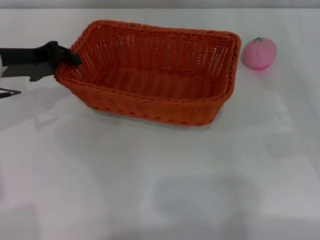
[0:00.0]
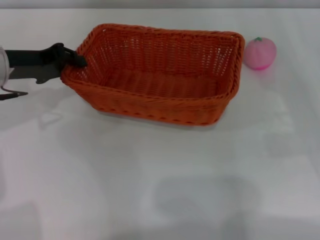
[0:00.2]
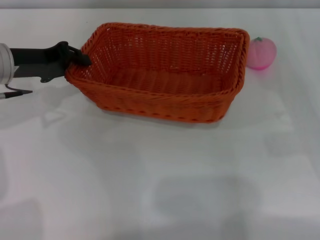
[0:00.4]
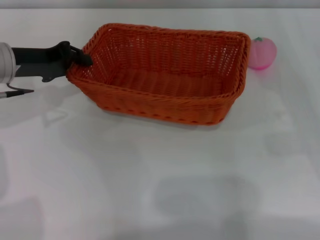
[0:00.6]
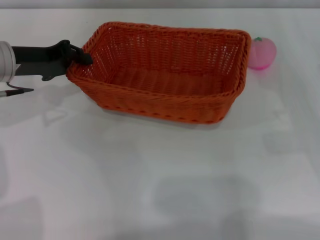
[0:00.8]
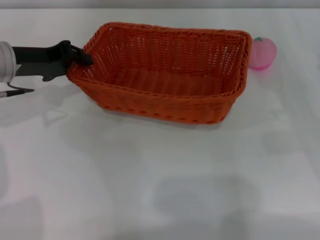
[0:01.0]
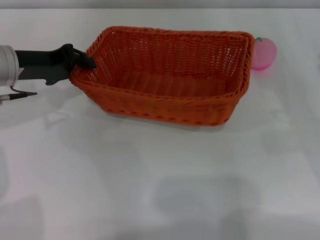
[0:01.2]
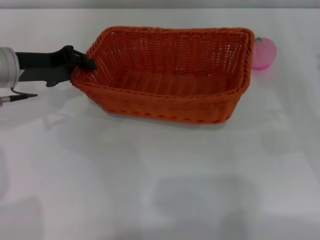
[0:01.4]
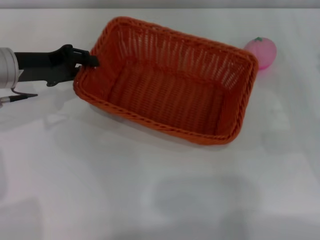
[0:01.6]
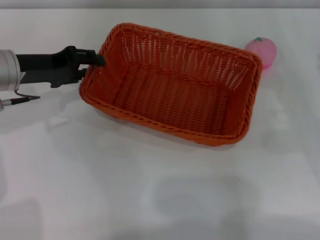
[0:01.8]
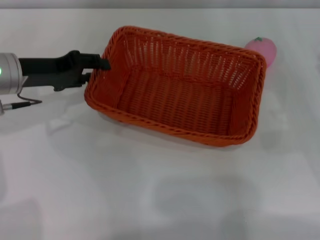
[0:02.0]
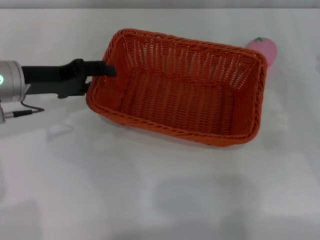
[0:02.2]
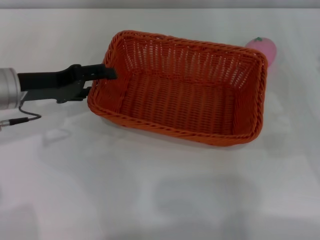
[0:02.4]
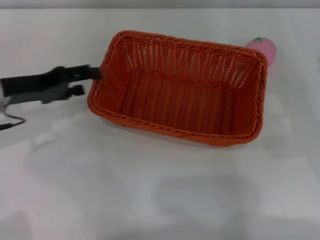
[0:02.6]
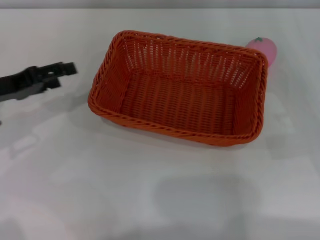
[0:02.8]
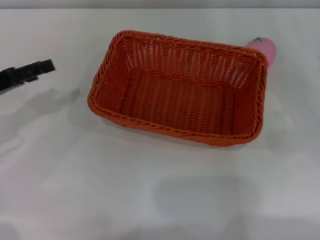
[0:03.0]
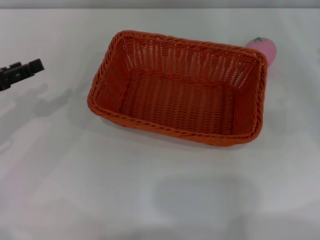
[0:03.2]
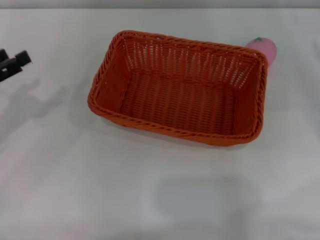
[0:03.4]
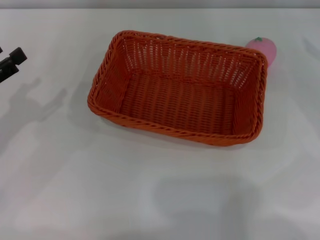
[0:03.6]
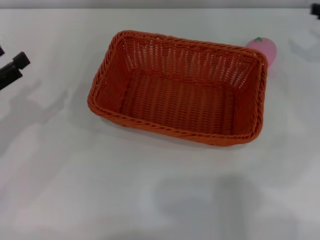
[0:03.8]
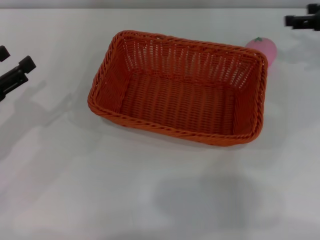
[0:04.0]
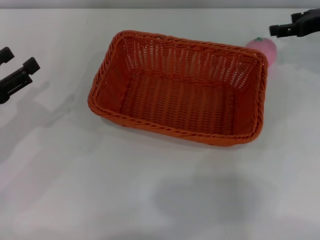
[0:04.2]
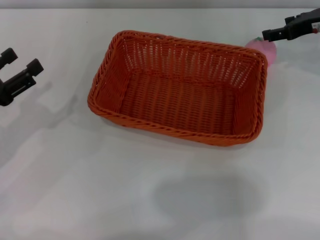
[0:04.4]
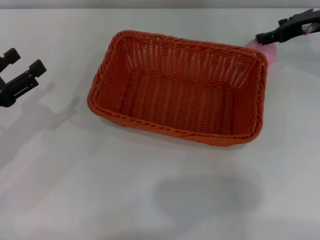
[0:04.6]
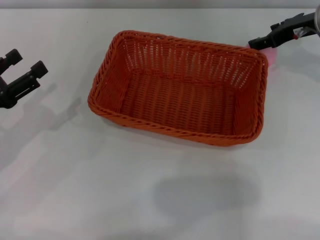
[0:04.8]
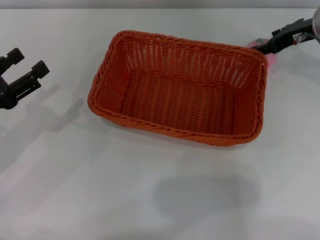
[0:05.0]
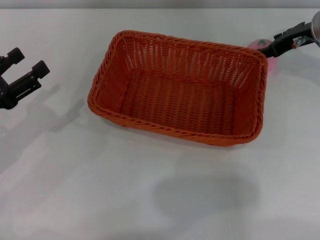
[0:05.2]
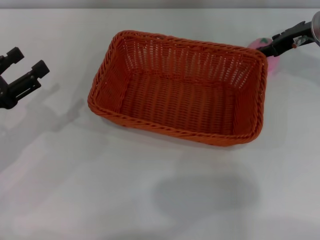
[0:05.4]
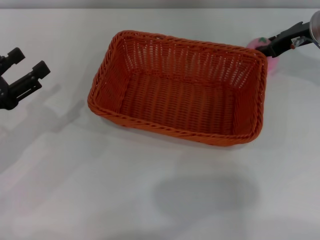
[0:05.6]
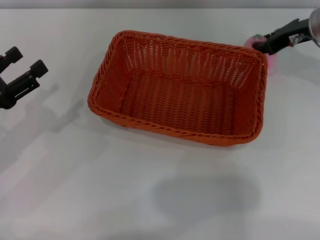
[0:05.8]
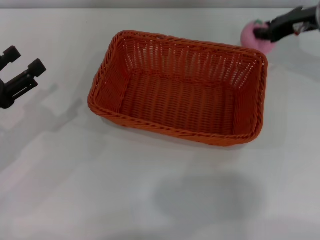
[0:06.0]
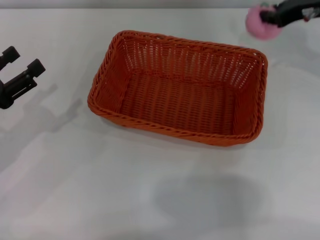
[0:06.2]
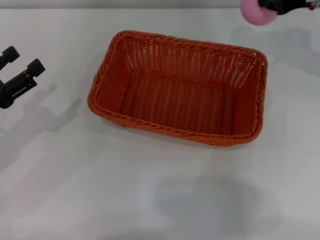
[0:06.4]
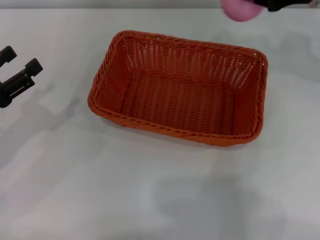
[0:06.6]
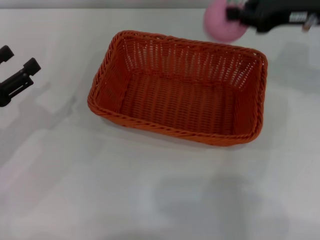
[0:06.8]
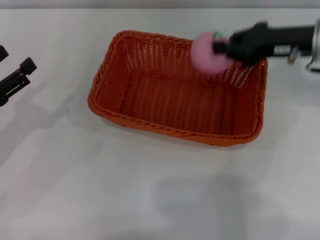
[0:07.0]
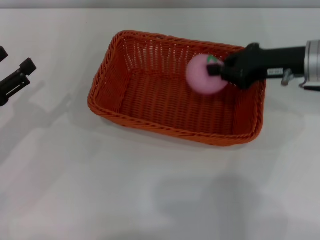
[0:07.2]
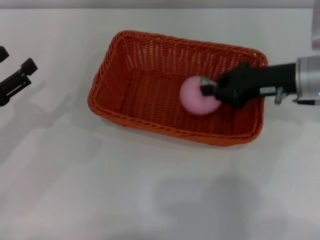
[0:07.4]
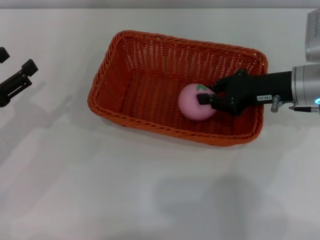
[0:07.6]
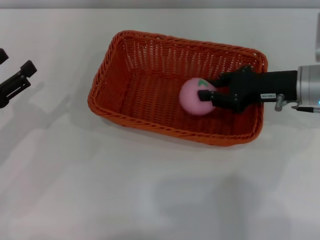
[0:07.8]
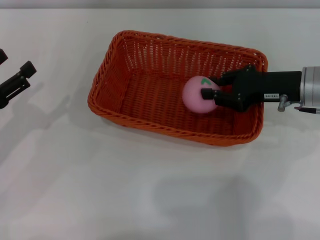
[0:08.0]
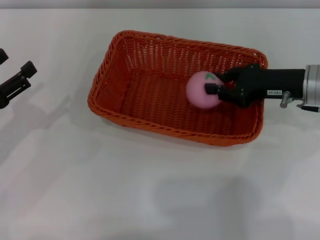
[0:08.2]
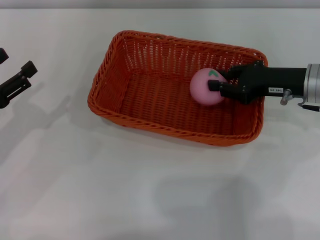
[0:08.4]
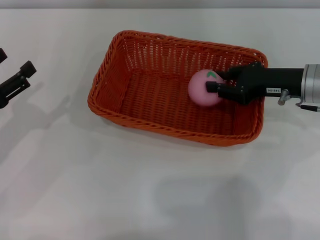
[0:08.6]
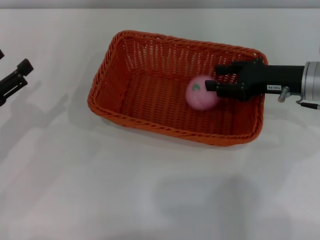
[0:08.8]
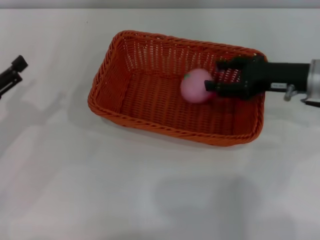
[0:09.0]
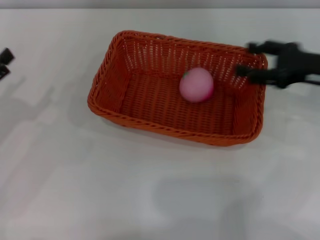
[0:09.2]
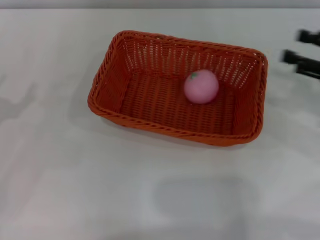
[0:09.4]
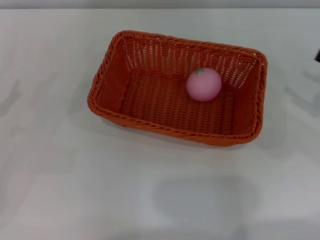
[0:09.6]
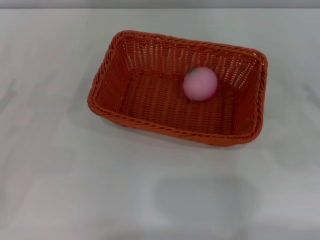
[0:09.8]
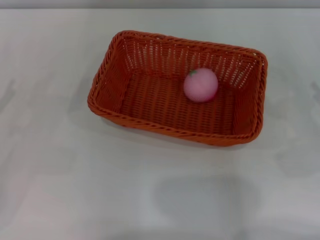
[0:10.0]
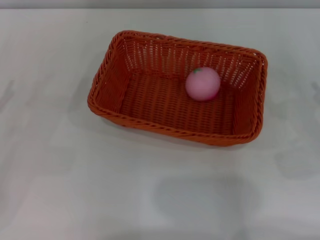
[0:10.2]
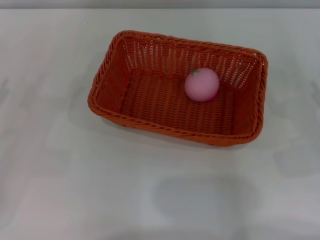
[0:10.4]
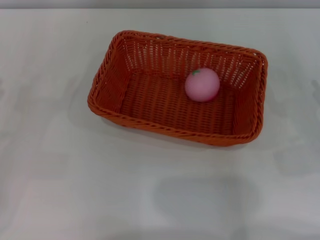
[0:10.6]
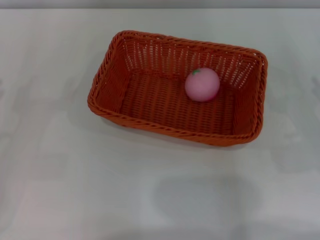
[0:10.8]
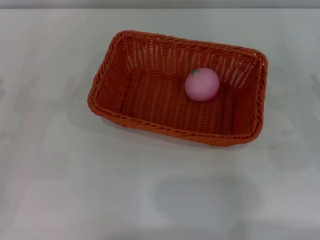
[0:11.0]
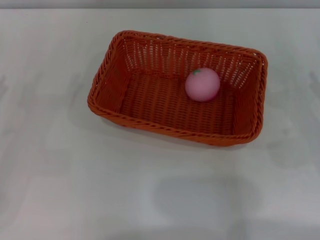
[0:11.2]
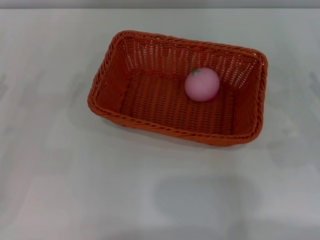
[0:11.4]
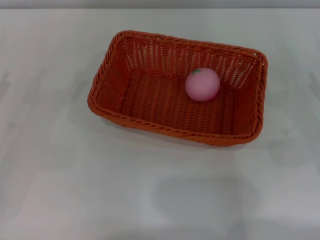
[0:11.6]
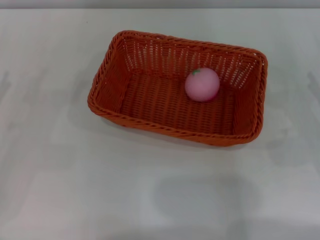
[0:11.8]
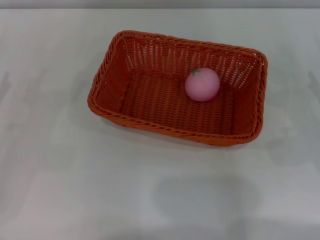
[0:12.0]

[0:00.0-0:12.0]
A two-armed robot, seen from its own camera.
Step, 0:00.0 to 0:02.8: Place the light basket in the center of view with the right gripper.
Step, 0:03.0 to 0:06.2: Pick up the peach with the left gripper.
0:00.0 to 0:01.6: The grippers move only a little.
0:01.6 to 0:03.0: The left gripper is displaced to the left and backward by about 10 cm, and opens.
0:03.0 to 0:04.4: The left gripper shifts by about 5 cm. The right gripper goes some 15 cm forward.
0:04.4 to 0:06.0: The right gripper closes.
0:06.0 to 0:07.6: The right gripper shifts roughly 10 cm backward and downward.
0:07.6 to 0:09.0: The right gripper opens up.
0:09.0 to 0:10.4: The right gripper goes about 15 cm backward, to the right and downward.

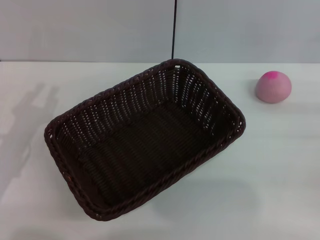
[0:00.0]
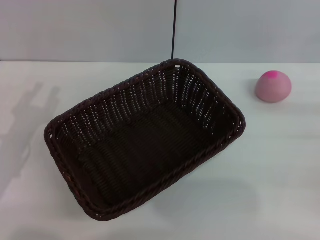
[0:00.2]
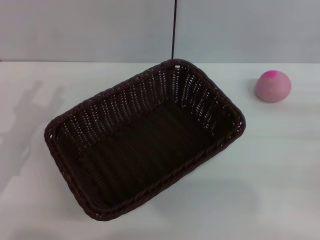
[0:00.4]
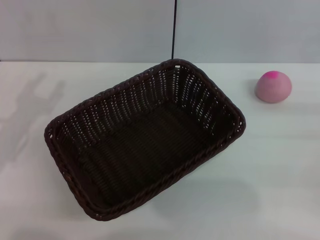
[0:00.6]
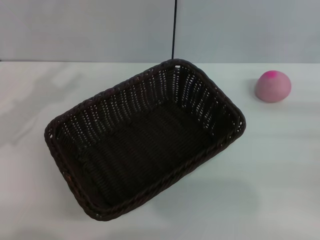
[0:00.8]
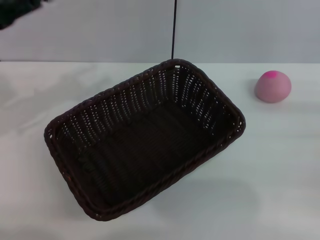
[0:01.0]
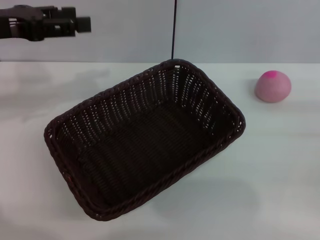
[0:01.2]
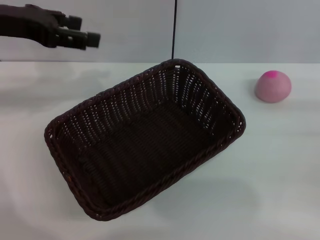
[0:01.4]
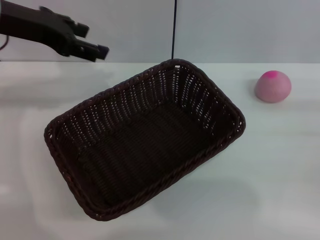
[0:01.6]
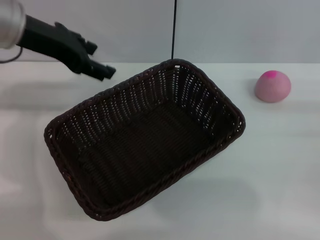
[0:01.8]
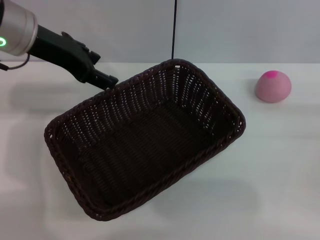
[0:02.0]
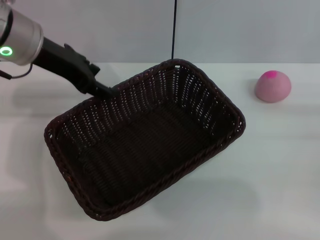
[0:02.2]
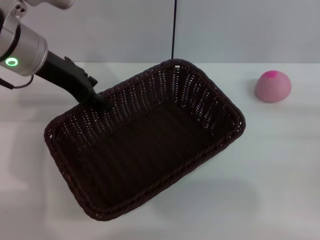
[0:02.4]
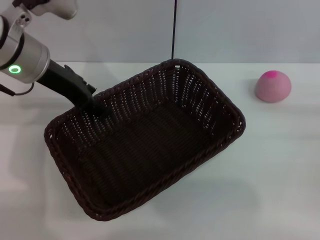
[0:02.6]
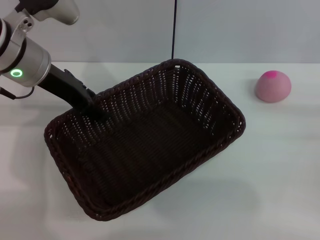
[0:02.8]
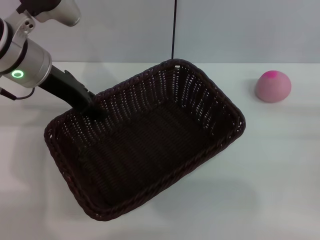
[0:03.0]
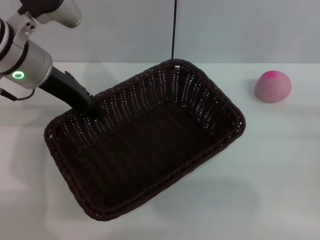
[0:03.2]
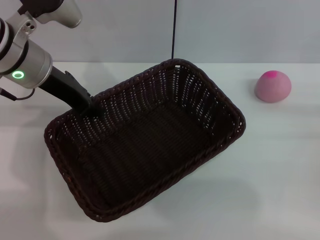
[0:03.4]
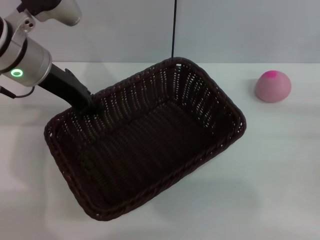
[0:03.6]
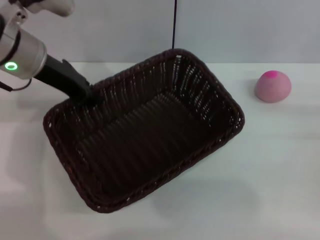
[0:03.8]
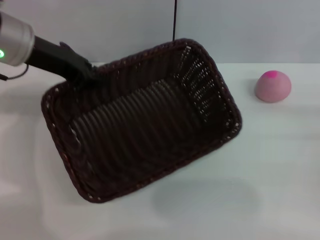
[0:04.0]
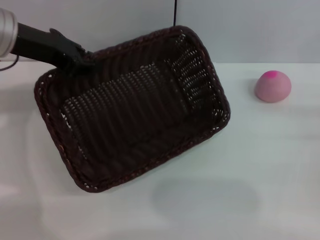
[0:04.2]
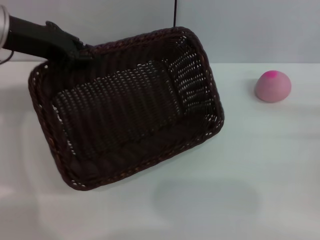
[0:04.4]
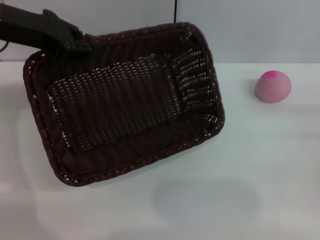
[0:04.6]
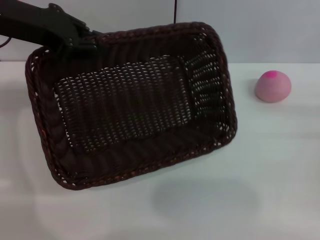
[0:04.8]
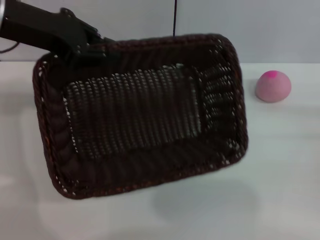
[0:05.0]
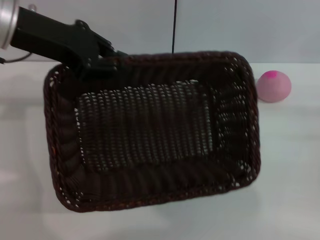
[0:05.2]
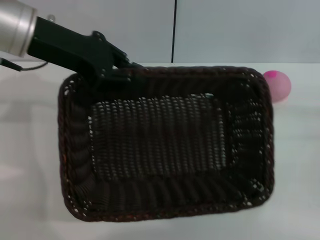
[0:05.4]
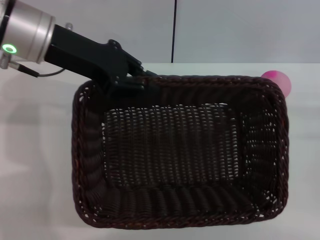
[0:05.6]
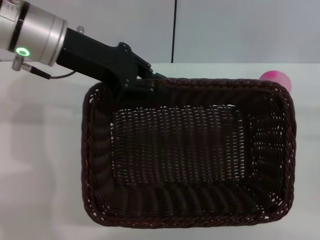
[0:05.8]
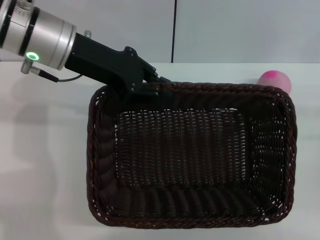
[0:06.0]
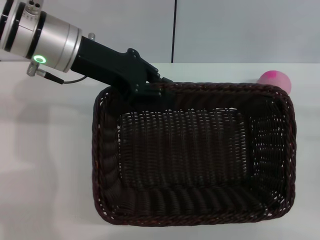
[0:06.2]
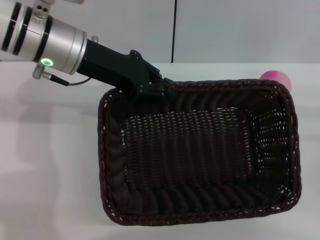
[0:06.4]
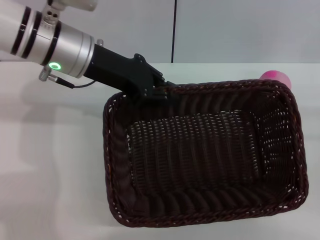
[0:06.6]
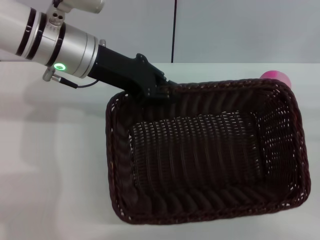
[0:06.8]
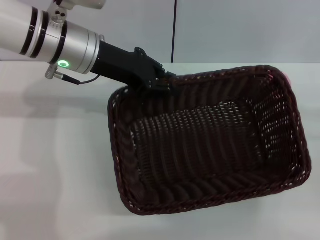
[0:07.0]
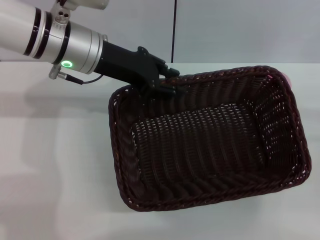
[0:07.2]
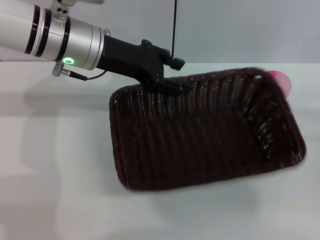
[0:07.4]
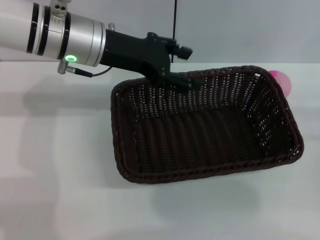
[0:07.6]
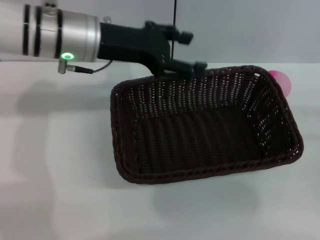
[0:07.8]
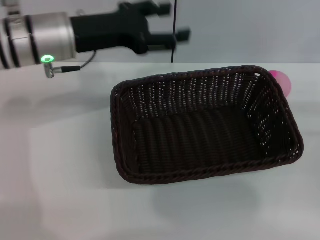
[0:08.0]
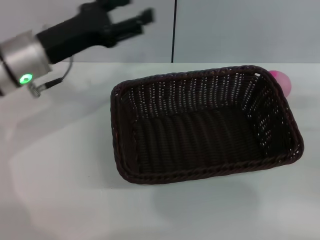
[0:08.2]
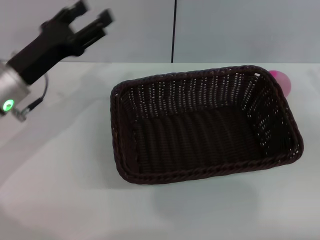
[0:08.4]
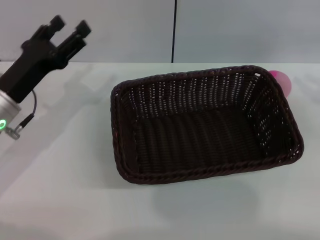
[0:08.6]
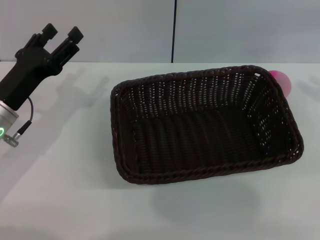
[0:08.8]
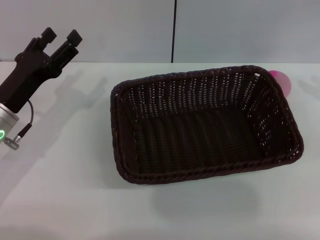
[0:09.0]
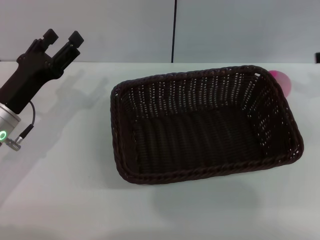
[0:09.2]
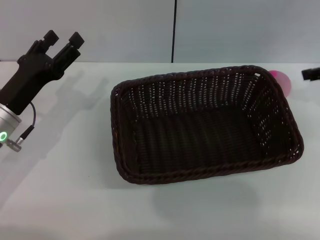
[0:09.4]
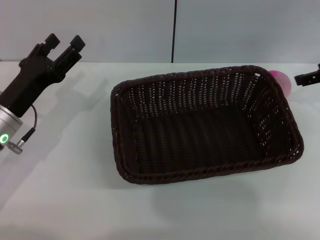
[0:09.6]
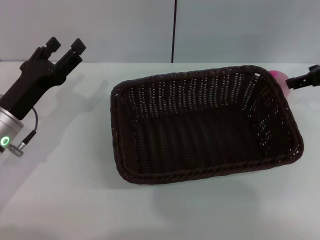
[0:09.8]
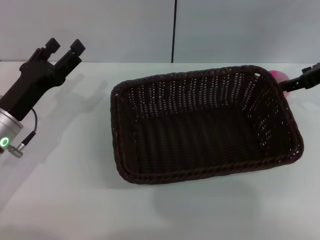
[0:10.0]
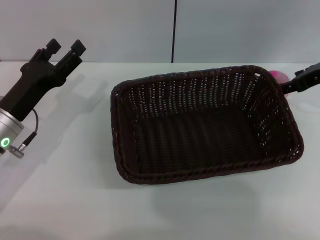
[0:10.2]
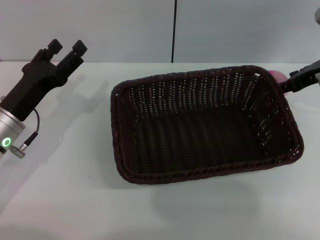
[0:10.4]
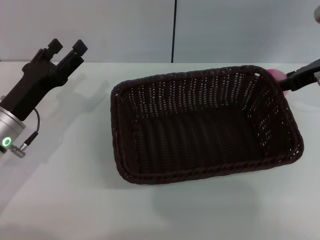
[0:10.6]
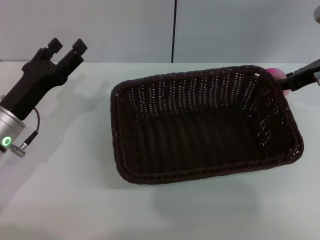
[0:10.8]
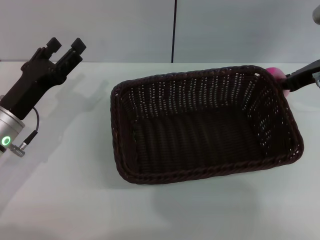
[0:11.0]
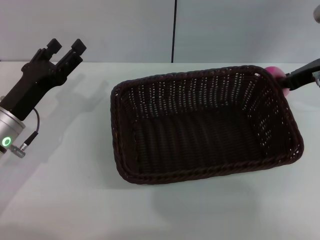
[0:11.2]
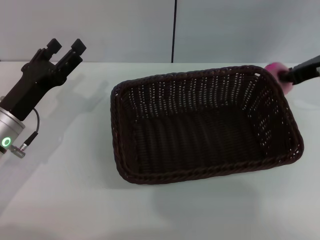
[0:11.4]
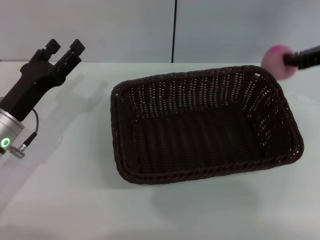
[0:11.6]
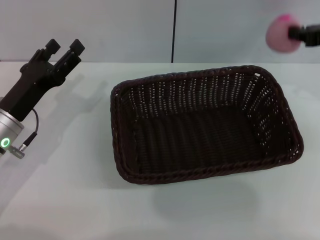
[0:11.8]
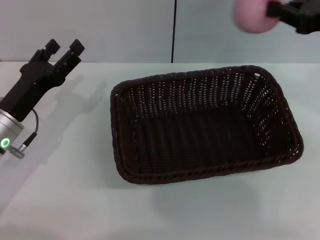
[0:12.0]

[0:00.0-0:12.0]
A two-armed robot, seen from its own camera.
Step, 0:00.0 to 0:03.8: Pick up the dark basket with the left gripper.
Step, 0:07.8 to 0:11.6: Pick up the peach with the left gripper.
0:00.0 to 0:01.6: The left gripper is displaced upward and forward by roughly 25 cm.
0:01.6 to 0:03.0: The left gripper heads downward, covering roughly 5 cm.
0:03.0 to 0:04.4: The left gripper moves roughly 5 cm, and closes.
0:04.4 to 0:06.0: The left gripper heads to the right, covering approximately 5 cm.
0:06.0 to 0:07.6: The left gripper opens its fingers.
0:07.6 to 0:09.0: The right gripper goes about 20 cm upward and forward. The left gripper is displaced downward, to the left and backward by approximately 20 cm.
0:09.0 to 0:10.4: The right gripper goes approximately 15 cm to the left, downward and forward, and opens up.
0:10.4 to 0:12.0: The right gripper goes about 10 cm upward and backward, and closes up.
